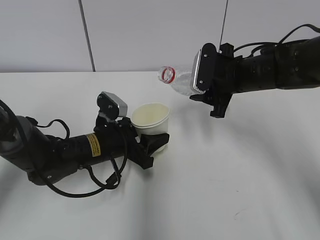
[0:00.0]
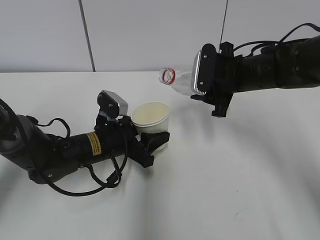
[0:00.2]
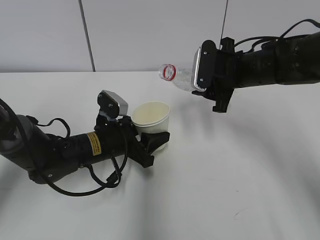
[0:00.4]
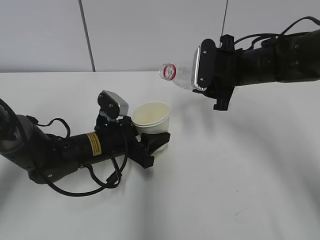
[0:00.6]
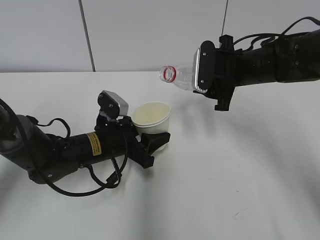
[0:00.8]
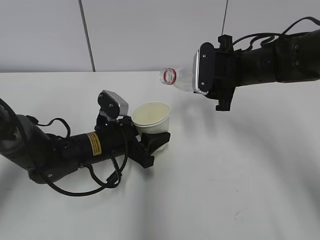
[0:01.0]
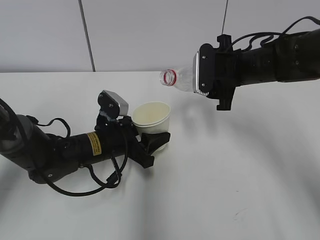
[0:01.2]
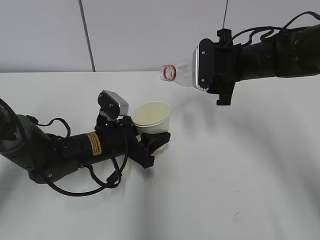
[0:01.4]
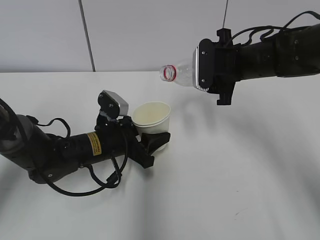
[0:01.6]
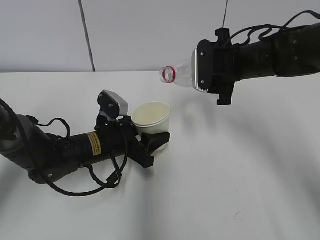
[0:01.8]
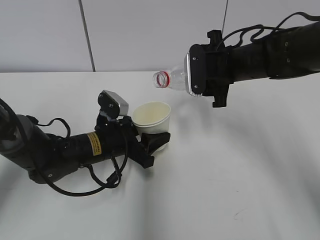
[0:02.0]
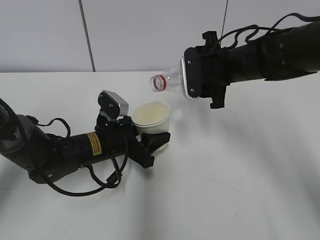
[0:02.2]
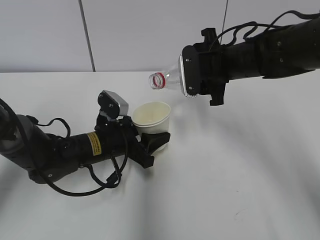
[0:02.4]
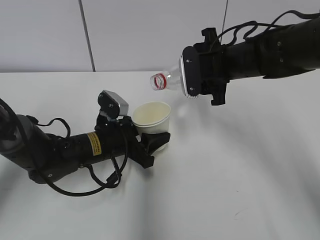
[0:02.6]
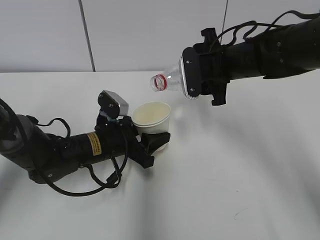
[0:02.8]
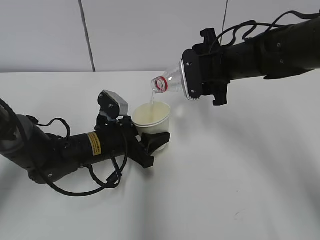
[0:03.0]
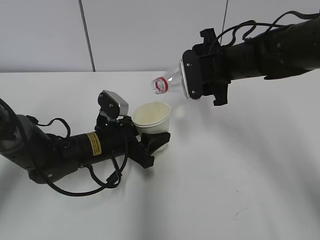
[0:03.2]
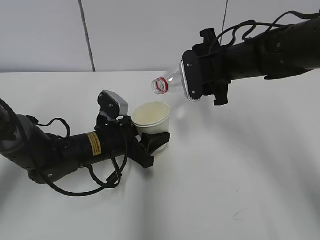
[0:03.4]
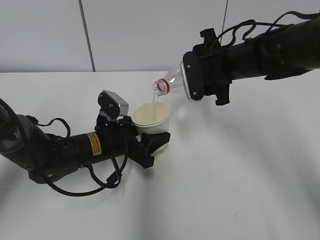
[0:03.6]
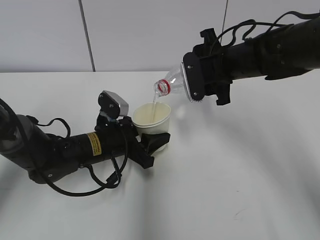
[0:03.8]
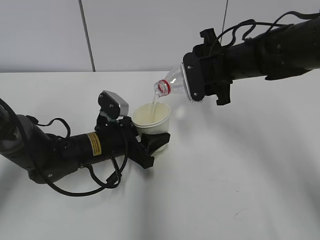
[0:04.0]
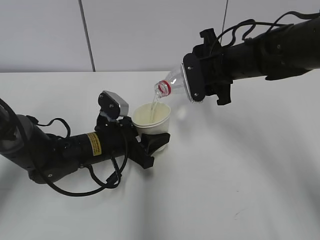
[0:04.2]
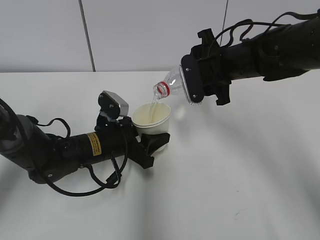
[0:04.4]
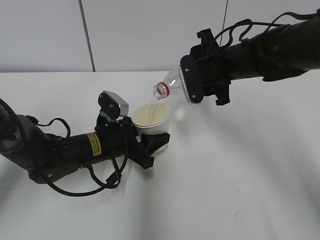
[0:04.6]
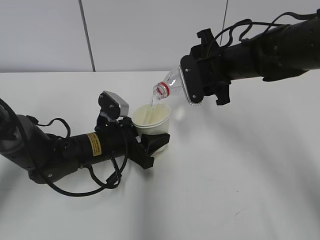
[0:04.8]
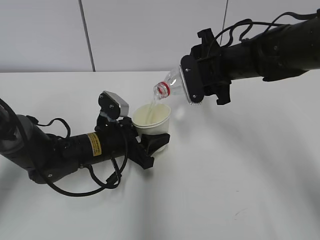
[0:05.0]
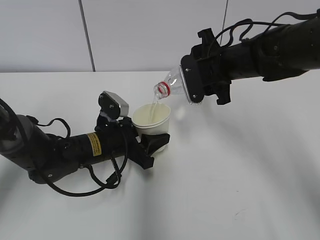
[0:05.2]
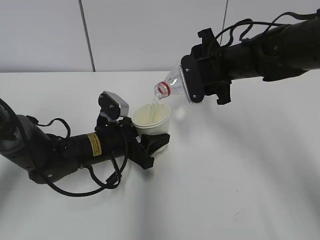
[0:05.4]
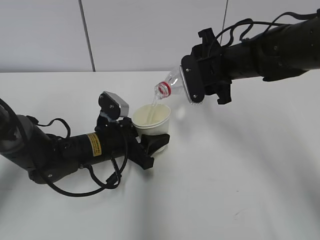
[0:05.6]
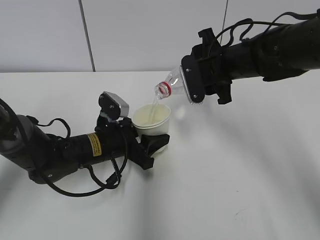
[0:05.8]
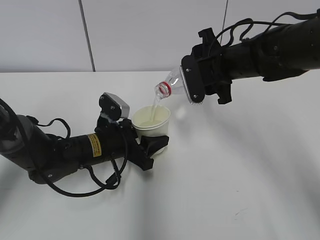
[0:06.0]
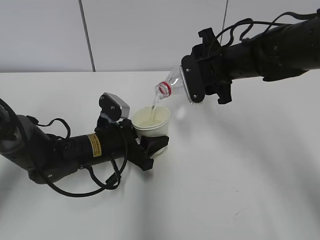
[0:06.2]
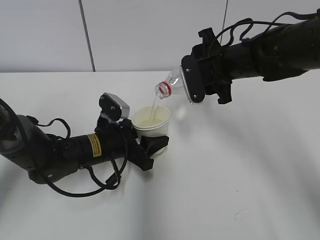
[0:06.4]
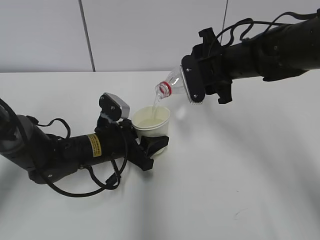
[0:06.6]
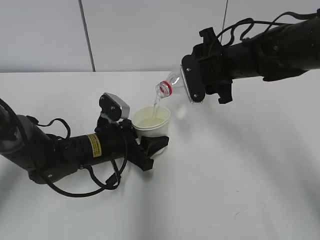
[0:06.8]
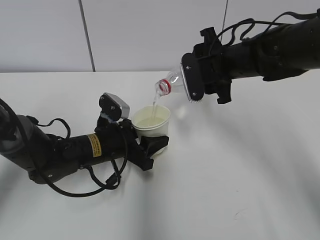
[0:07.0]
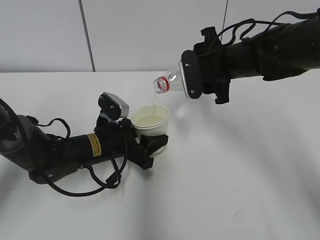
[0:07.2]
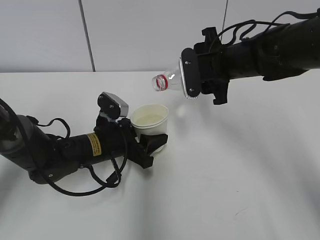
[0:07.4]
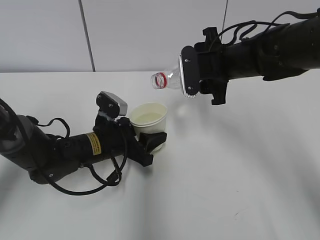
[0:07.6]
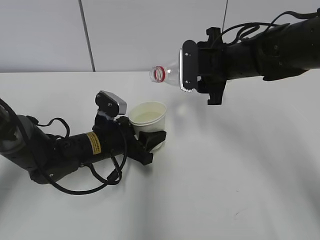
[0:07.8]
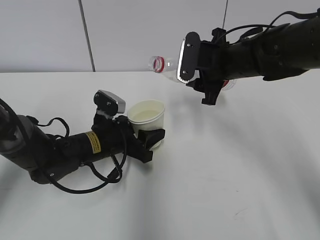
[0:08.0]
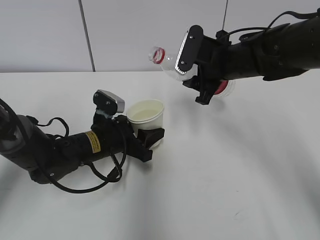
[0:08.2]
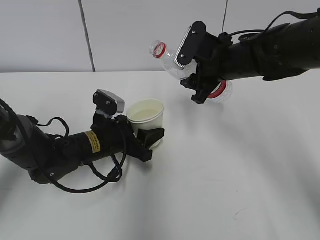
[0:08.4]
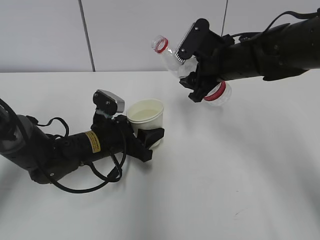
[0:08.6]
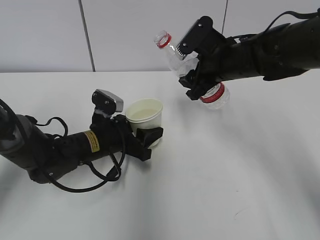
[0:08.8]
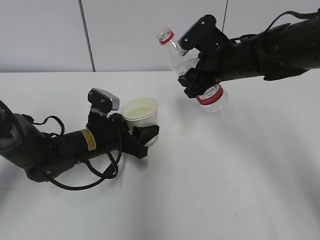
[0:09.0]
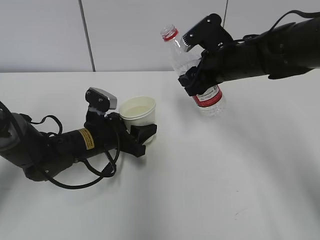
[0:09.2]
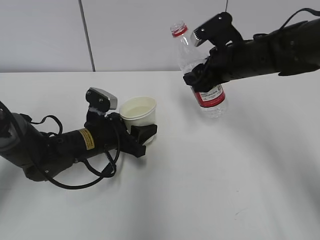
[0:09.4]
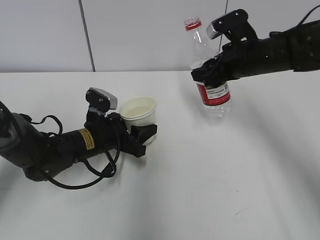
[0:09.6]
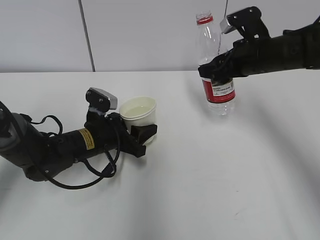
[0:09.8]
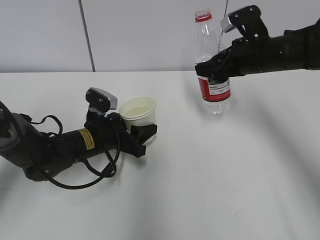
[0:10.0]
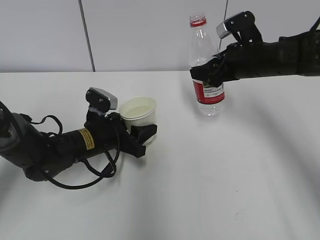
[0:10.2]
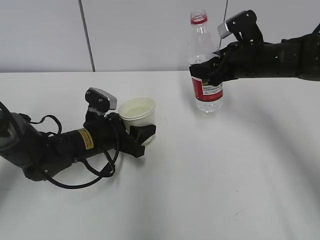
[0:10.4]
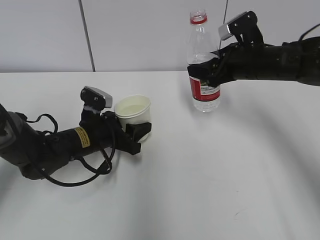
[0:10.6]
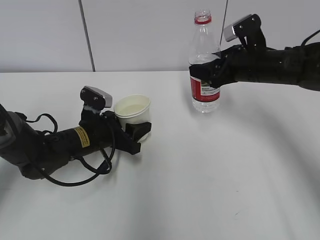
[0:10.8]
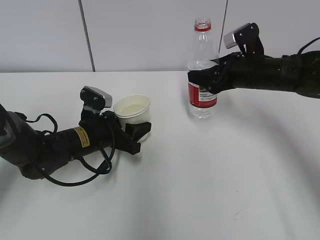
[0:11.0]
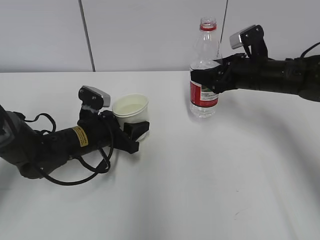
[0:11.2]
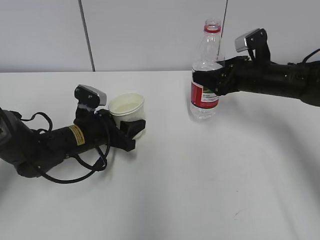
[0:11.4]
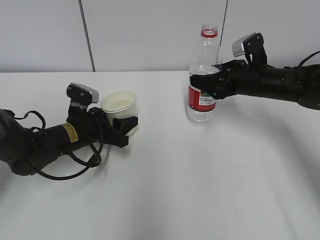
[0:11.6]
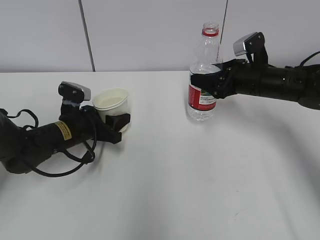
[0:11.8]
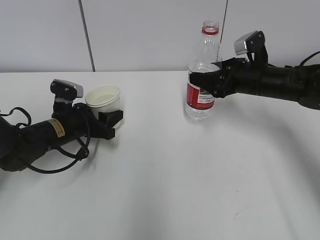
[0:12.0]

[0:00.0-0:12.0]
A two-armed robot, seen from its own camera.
Step, 0:00.0 to 0:03.4: Pour water with the right hand.
Step, 0:03.6 to 0:05.2: Collect water with the right hand.
Step, 0:05.4 to 0:10.0: Place the paper cup with the left hand.
0:00.0 to 0:01.6: There are only small adjustments of the grippers.
0:01.6 to 0:04.4: The grippers stay close to where they were, moving slightly.
0:04.4 to 0:06.0: Both grippers stay about where they are.
0:06.0 to 0:07.6: The grippers move only a little.
0:09.0 to 0:10.4: The right gripper heads to the right, covering approximately 5 cm.
0:10.4 to 0:12.0: The left gripper heads to the left, covering approximately 5 cm.

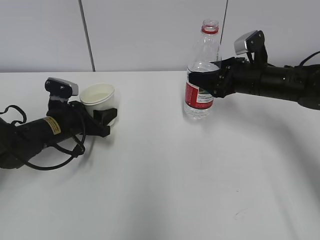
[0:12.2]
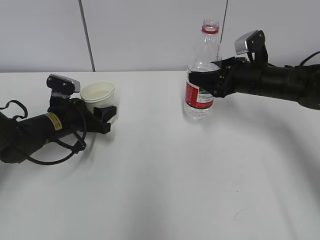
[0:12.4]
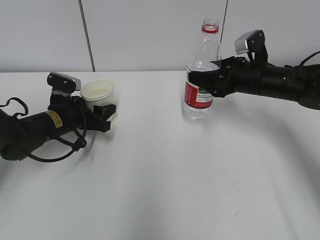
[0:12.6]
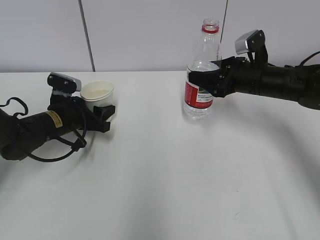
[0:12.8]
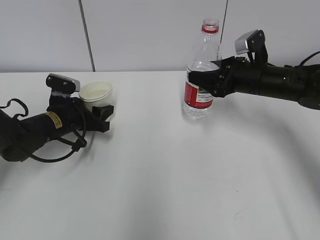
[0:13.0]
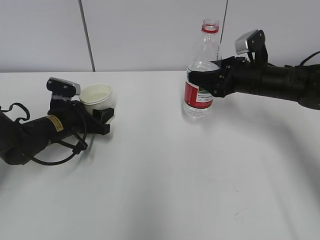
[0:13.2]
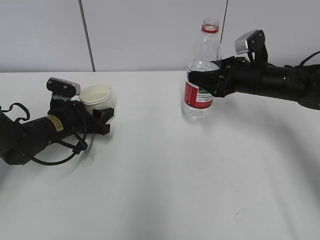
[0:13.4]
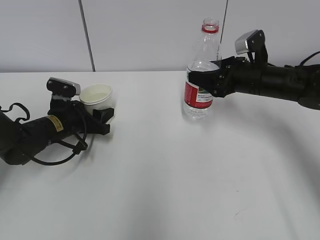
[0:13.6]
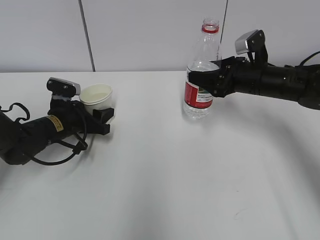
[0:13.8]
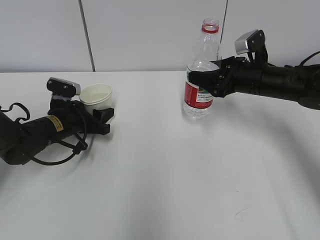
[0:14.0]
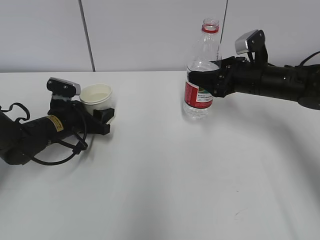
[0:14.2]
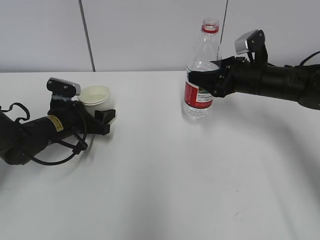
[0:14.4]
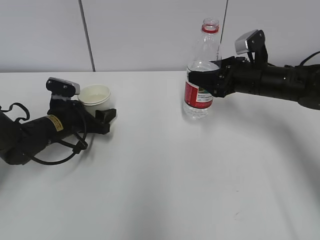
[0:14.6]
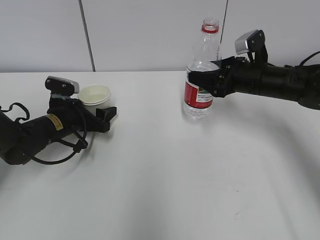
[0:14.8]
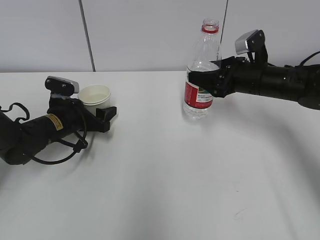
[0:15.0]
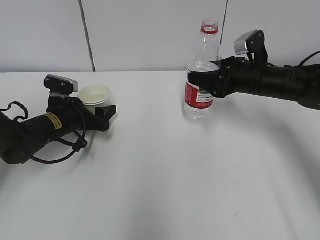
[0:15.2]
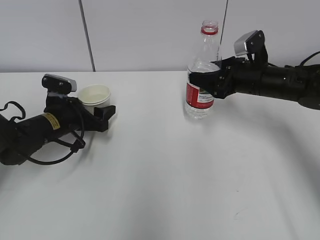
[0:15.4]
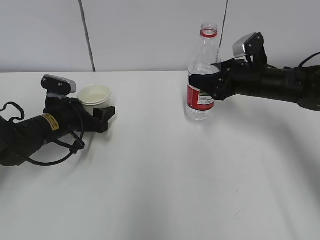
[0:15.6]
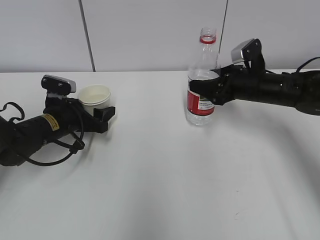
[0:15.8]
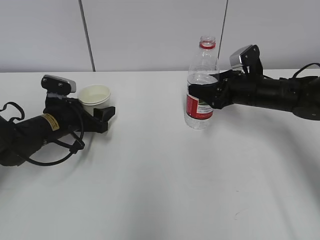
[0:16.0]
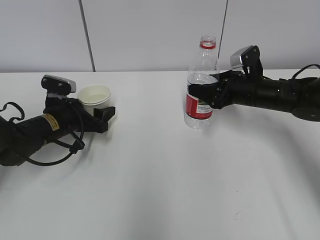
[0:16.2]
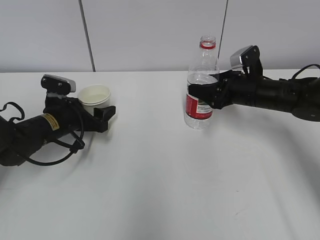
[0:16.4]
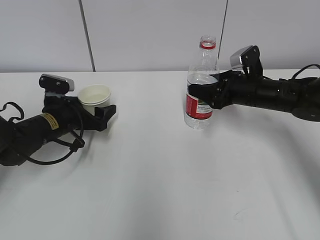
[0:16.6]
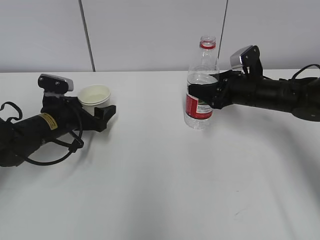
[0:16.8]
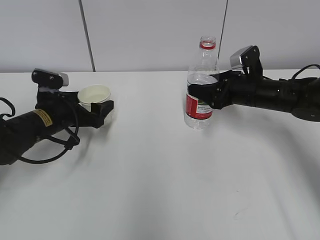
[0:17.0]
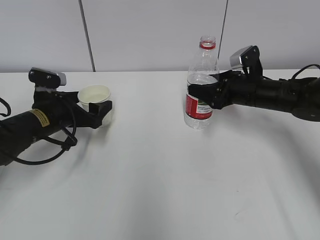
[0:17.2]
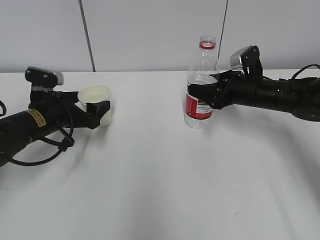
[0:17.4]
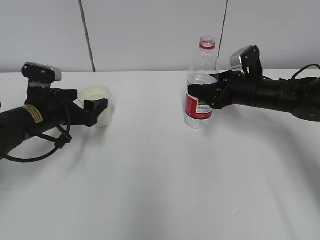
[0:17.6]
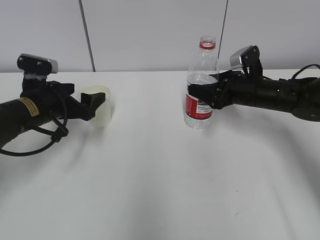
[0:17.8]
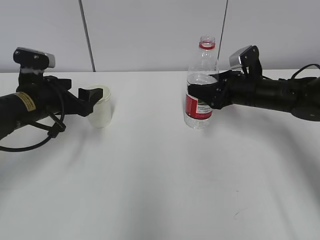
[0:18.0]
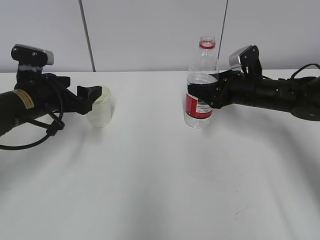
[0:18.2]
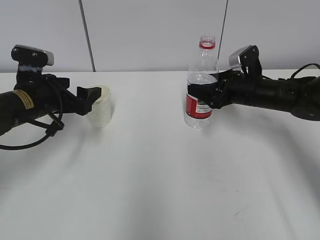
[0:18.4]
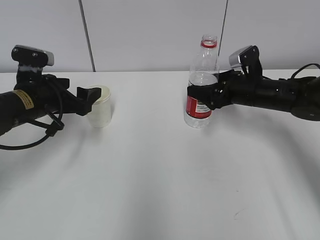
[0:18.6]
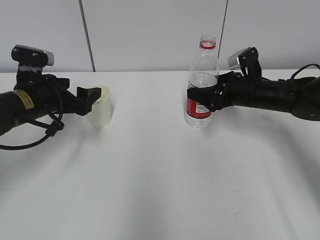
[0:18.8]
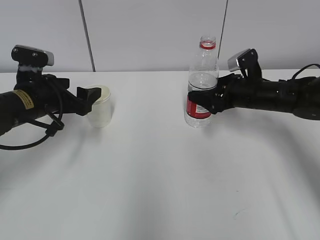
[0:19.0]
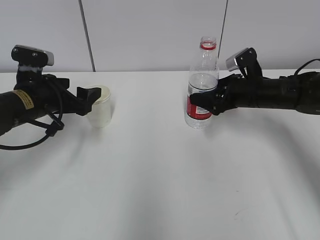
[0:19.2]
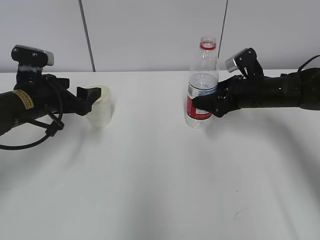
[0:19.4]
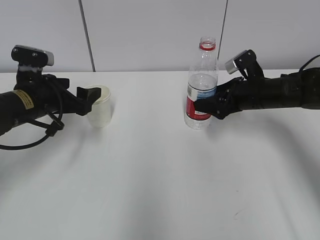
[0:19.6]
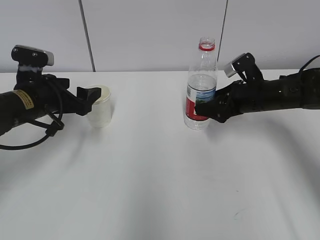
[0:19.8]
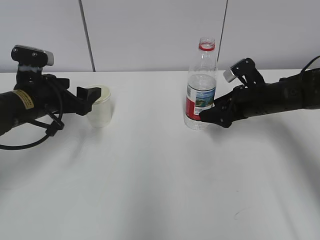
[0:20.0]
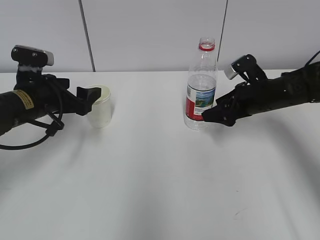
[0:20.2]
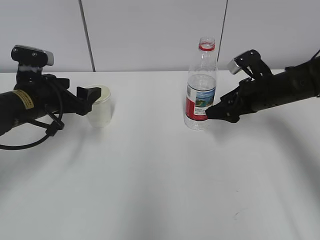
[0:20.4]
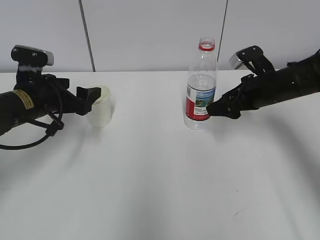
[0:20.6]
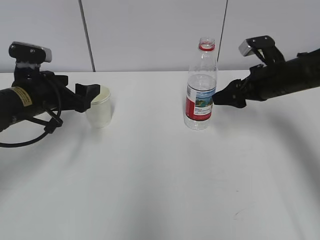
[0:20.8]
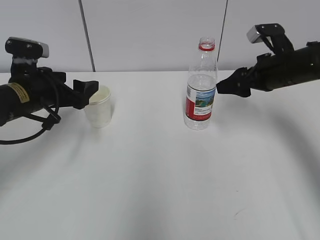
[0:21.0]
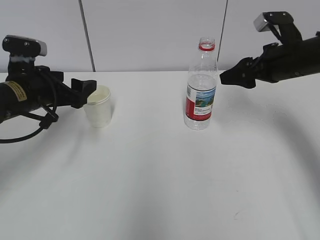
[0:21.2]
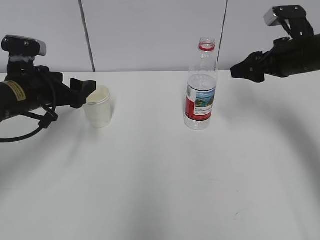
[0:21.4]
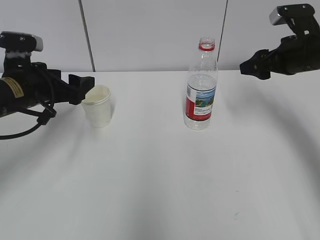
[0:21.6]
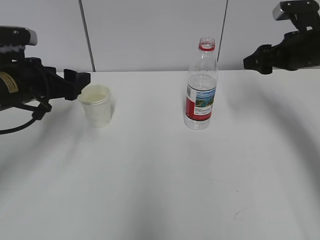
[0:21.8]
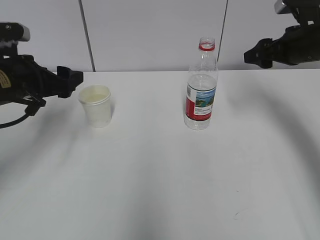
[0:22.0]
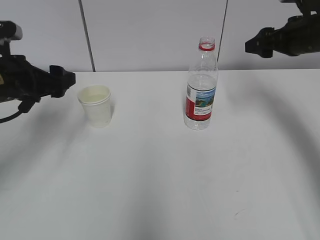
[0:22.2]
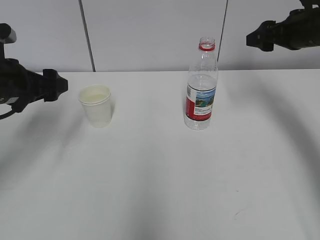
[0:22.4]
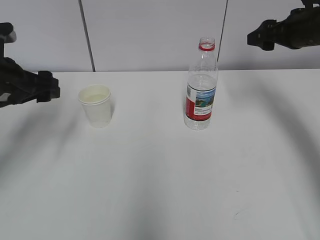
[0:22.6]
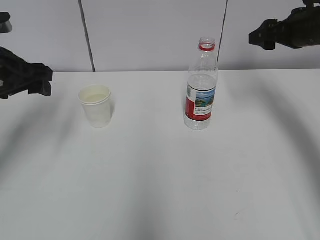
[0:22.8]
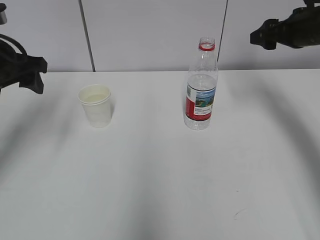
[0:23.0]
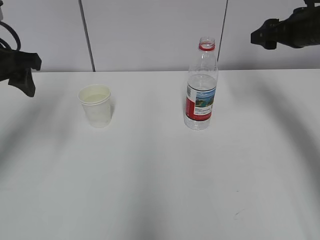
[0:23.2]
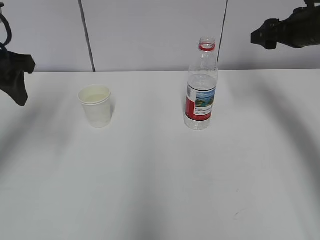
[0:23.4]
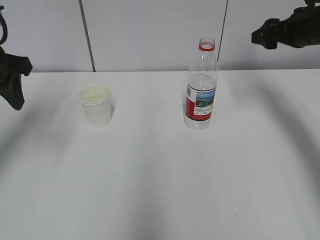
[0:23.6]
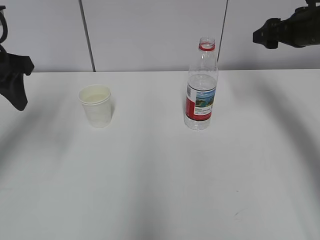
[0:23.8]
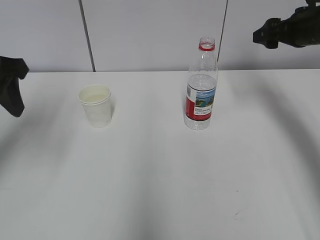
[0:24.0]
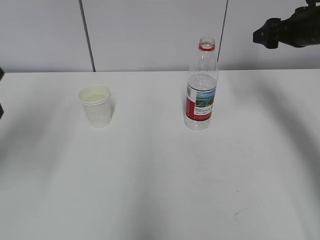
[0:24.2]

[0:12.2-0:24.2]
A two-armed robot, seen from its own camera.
0:12.2 to 0:13.8: The grippers make only small movements.
0:13.8 to 0:15.2: The left gripper opens.
0:15.2 to 0:16.6: The grippers move only a little.
0:16.6 to 0:18.2: The left gripper travels upward by some 10 cm.
0:18.2 to 0:19.8: The right gripper opens its fingers.
0:19.8 to 0:21.2: The right gripper shifts about 10 cm upward.
0:21.2 to 0:22.6: The right gripper ends up roughly 5 cm from where it was, while the left gripper ends up approximately 5 cm from where it was.
0:22.6 to 0:24.2: The left gripper goes some 10 cm upward and backward.
